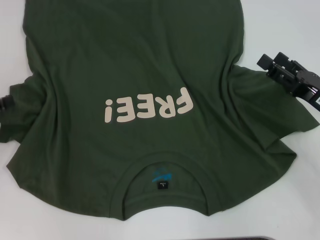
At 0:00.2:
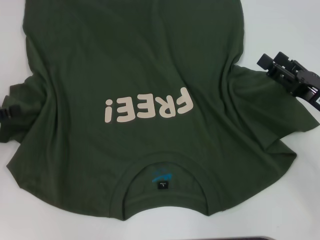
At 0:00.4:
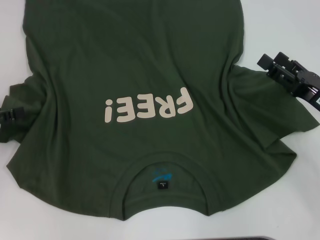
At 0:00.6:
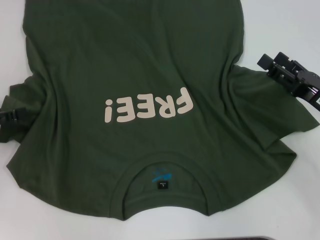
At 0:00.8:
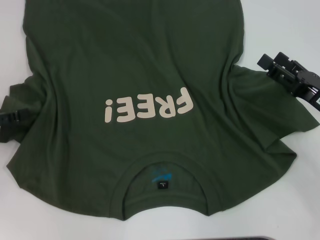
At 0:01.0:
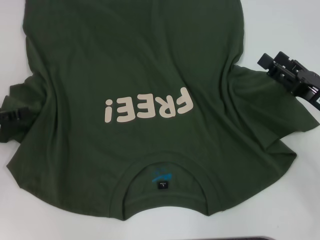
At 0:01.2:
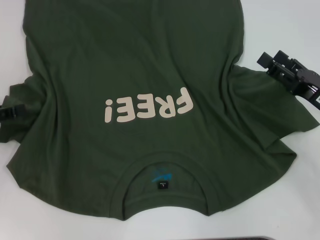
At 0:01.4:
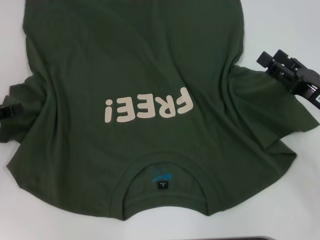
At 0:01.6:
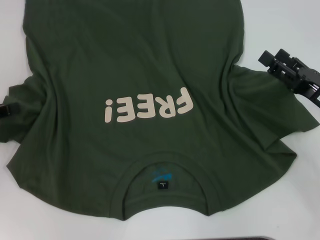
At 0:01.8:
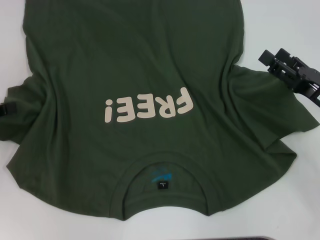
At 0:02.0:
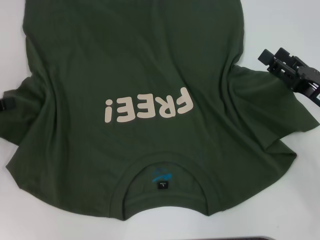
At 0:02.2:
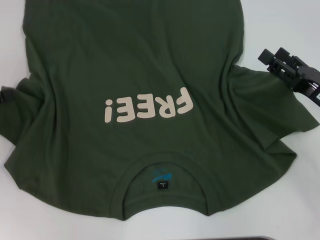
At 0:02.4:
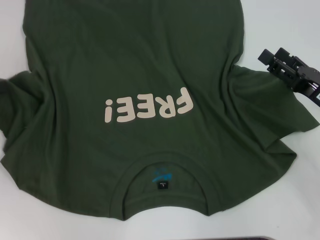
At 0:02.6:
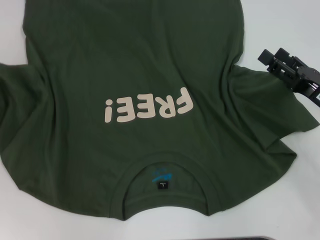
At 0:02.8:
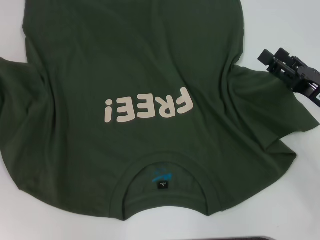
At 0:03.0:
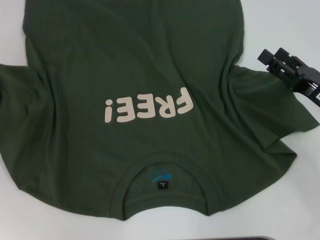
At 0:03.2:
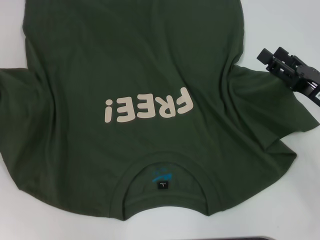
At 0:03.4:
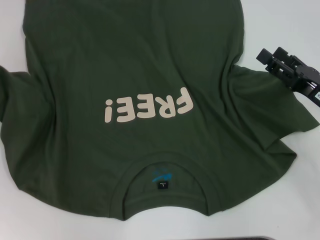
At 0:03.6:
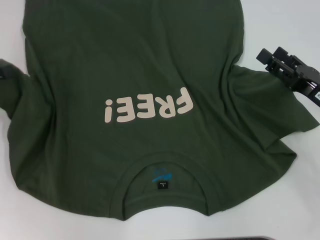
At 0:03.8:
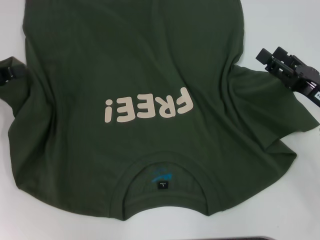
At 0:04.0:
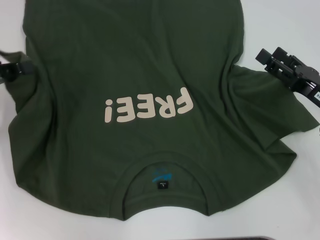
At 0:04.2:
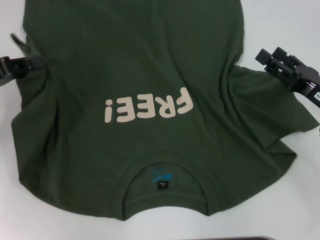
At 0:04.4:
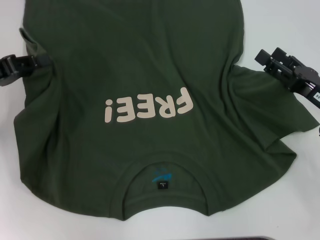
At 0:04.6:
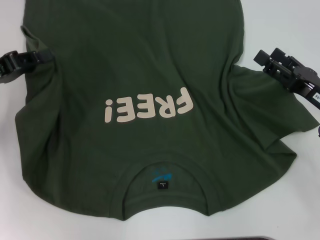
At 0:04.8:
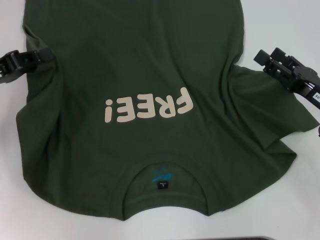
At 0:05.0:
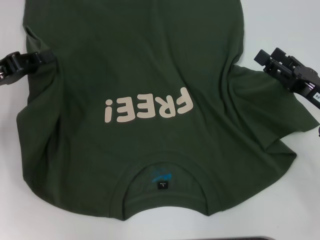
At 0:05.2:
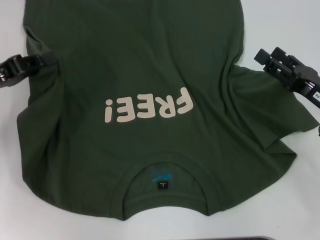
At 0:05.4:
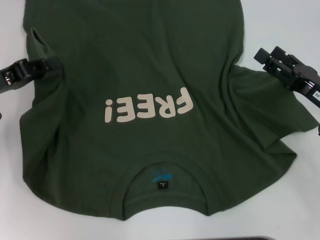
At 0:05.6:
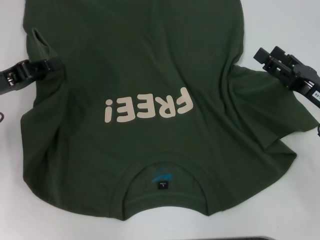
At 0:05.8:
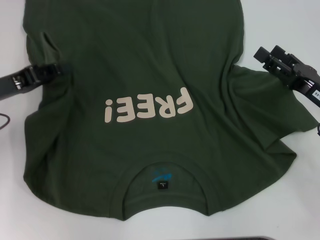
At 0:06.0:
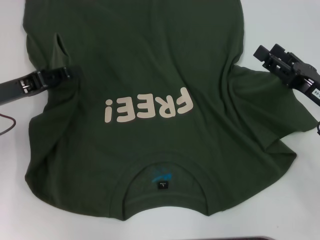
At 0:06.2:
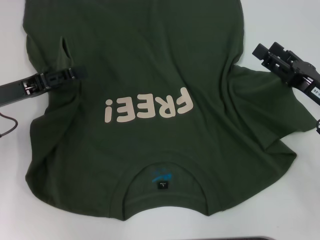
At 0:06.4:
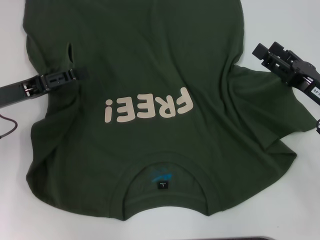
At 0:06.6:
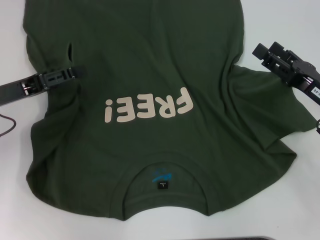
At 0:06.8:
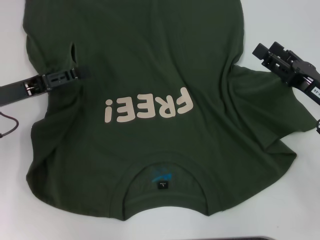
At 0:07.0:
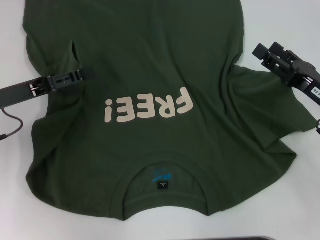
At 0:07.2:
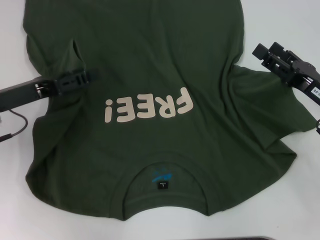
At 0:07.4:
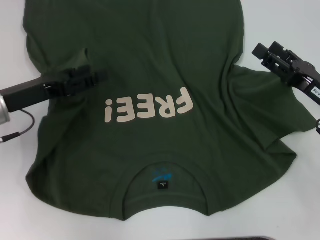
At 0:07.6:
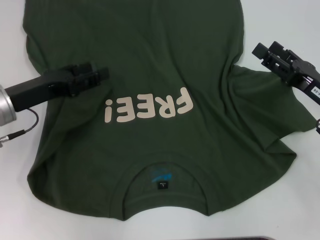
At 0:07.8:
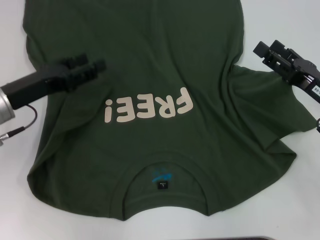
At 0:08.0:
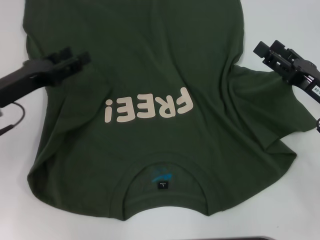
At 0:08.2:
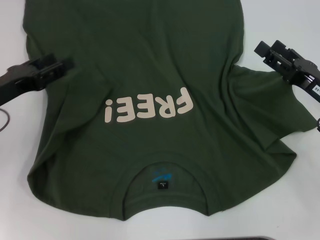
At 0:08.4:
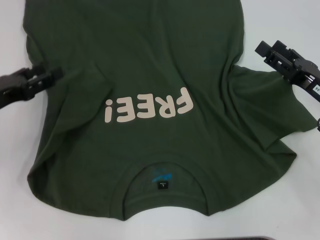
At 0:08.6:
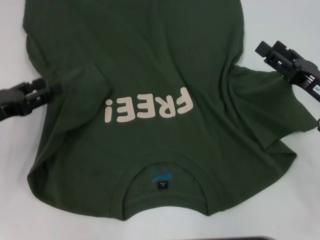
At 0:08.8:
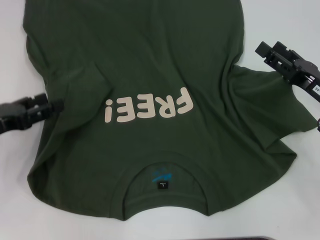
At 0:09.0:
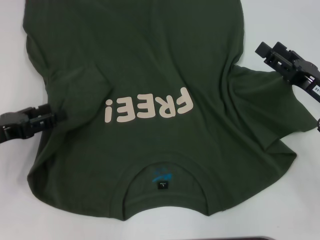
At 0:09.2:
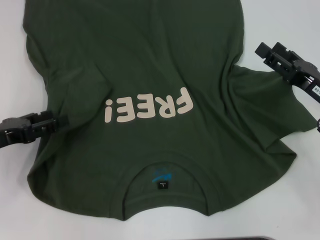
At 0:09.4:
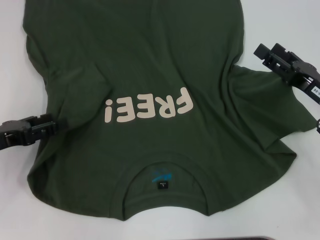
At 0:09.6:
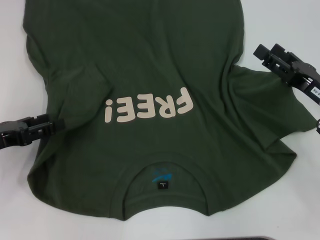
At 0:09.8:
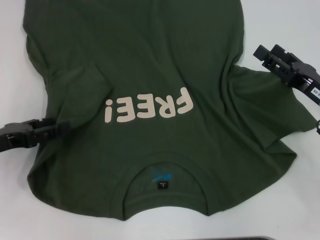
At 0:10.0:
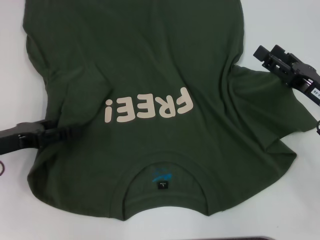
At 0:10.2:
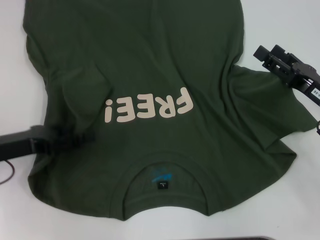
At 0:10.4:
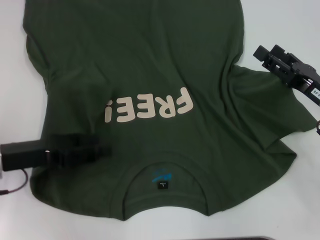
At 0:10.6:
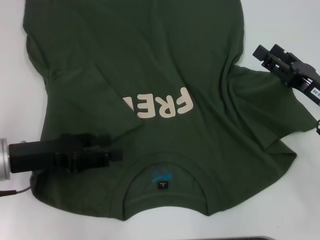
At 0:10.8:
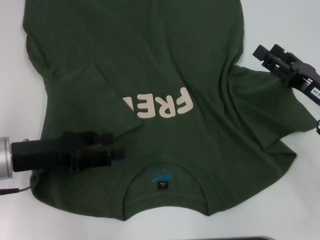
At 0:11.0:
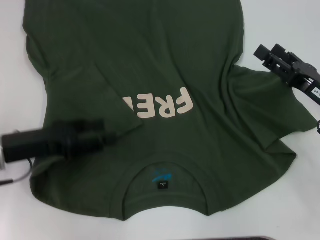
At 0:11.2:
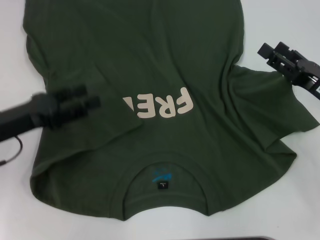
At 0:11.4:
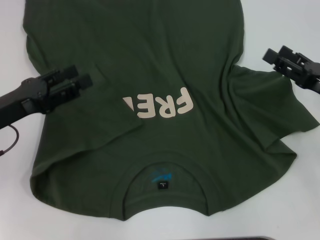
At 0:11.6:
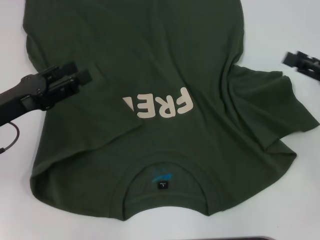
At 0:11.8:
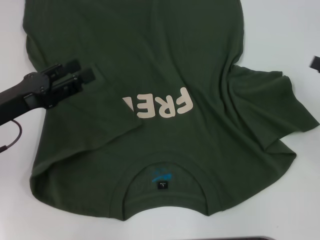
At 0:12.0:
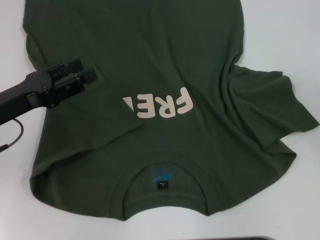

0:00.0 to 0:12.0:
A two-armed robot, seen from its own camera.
Step, 0:00.0 to 0:10.8: Fold the bottom left sleeve with your left hand.
0:01.6 to 0:03.0: The left gripper is displaced upward by about 5 cm, and closes up.
0:03.0 to 0:04.4: The left gripper moves to the right, approximately 5 cm.
0:04.4 to 0:06.0: The grippers stay close to where they were, moving slightly.
0:06.0 to 0:07.6: The left gripper opens up.
0:07.6 to 0:09.0: The left gripper travels to the left and backward by roughly 10 cm.
0:09.0 to 0:10.4: There are only small adjustments of the grippers.
0:10.4 to 0:12.0: The right gripper is displaced to the right and upward by roughly 15 cm.

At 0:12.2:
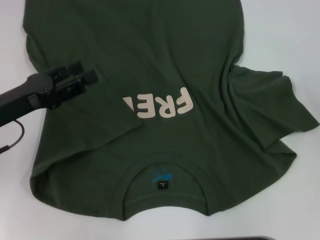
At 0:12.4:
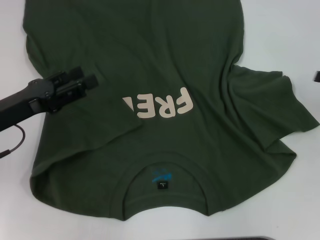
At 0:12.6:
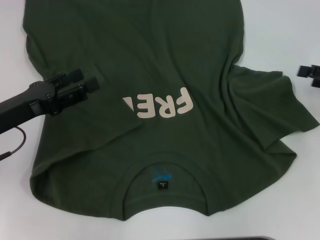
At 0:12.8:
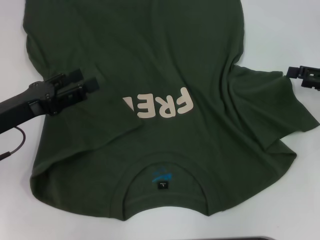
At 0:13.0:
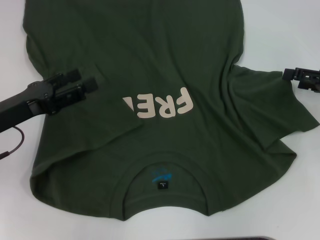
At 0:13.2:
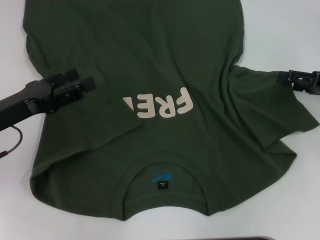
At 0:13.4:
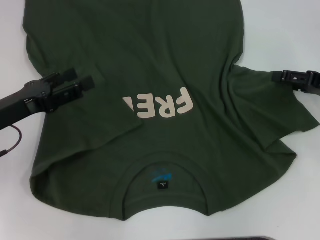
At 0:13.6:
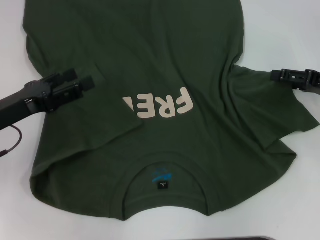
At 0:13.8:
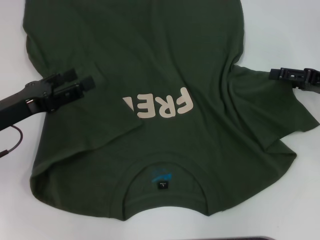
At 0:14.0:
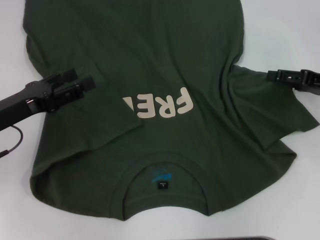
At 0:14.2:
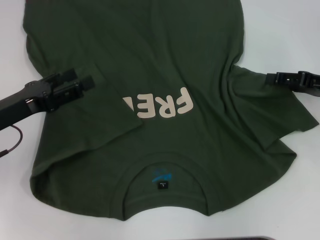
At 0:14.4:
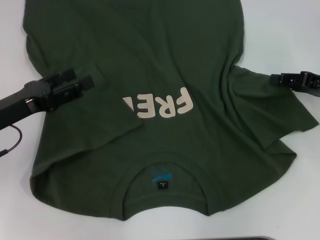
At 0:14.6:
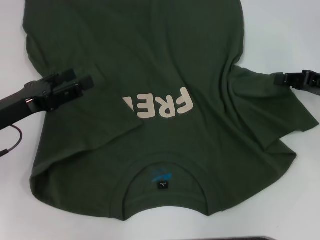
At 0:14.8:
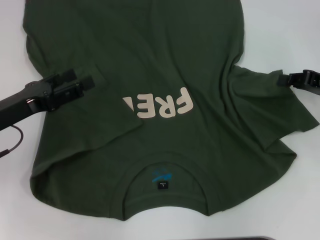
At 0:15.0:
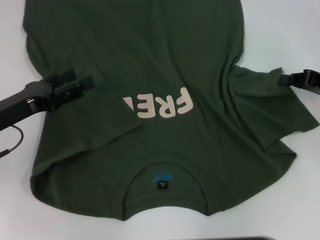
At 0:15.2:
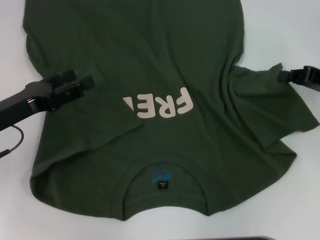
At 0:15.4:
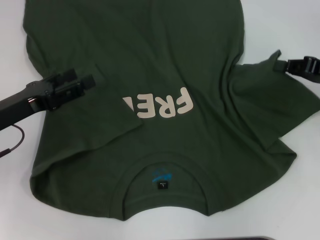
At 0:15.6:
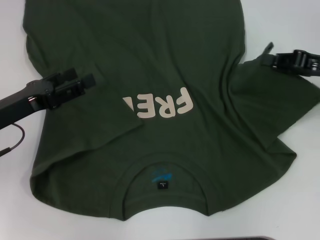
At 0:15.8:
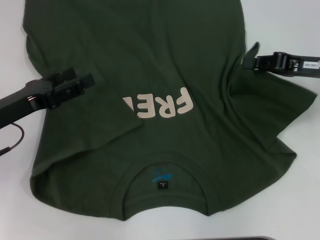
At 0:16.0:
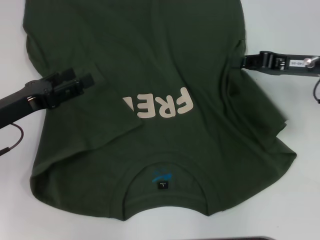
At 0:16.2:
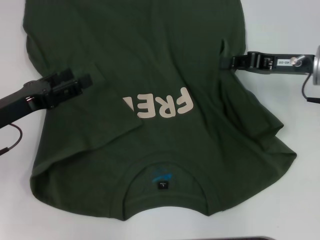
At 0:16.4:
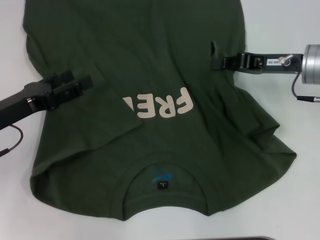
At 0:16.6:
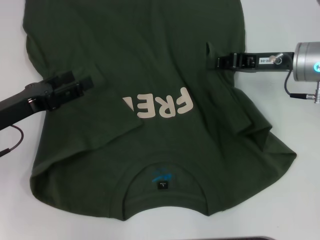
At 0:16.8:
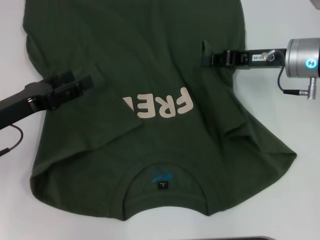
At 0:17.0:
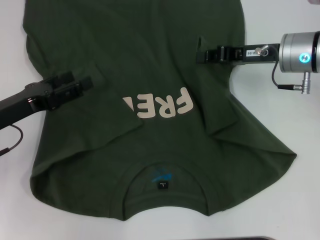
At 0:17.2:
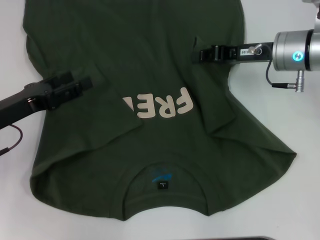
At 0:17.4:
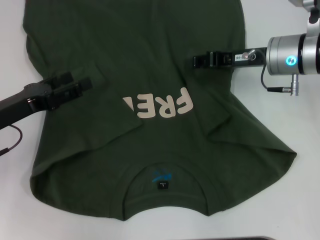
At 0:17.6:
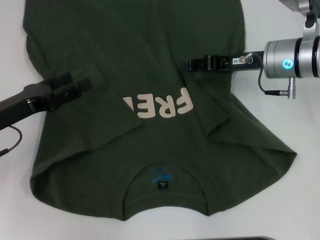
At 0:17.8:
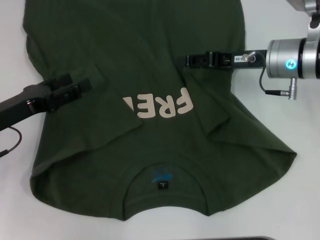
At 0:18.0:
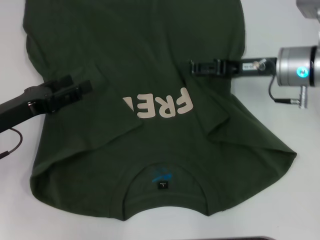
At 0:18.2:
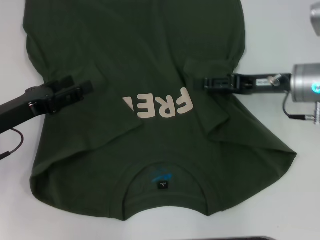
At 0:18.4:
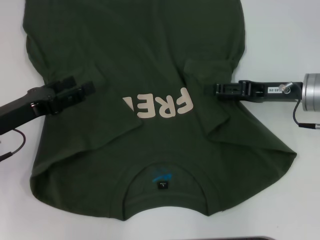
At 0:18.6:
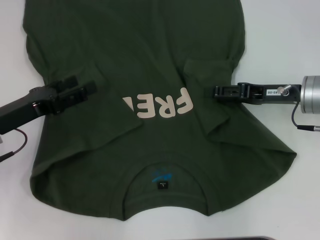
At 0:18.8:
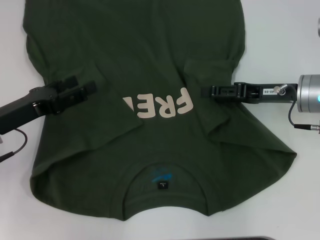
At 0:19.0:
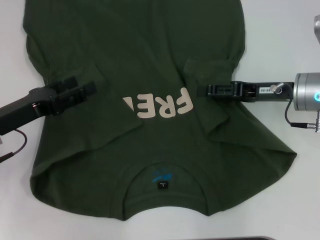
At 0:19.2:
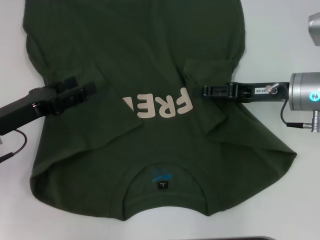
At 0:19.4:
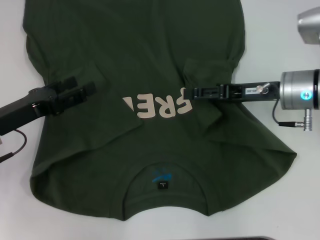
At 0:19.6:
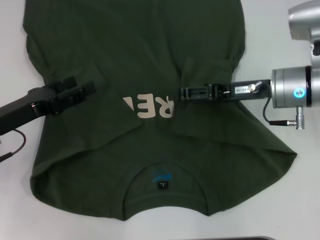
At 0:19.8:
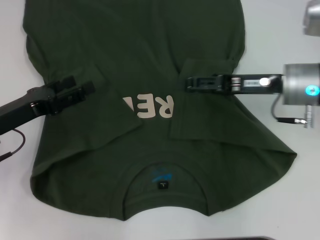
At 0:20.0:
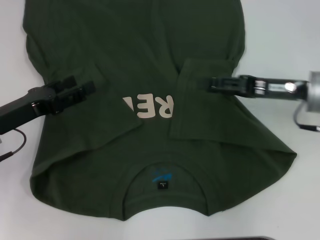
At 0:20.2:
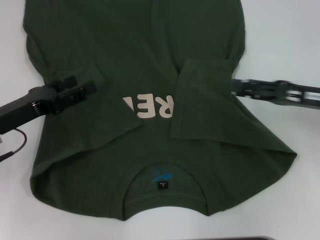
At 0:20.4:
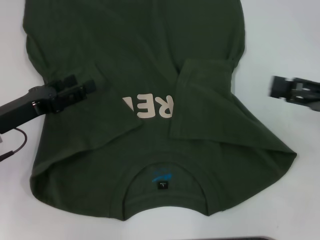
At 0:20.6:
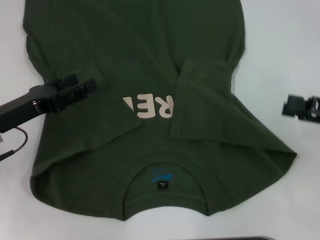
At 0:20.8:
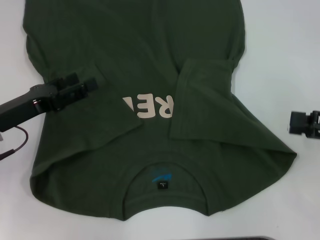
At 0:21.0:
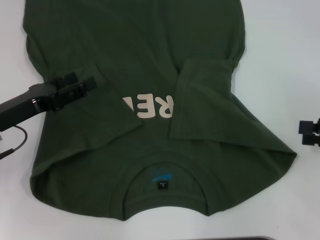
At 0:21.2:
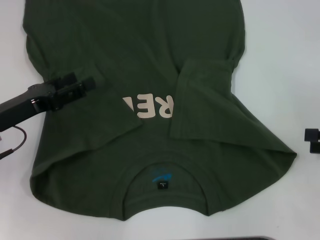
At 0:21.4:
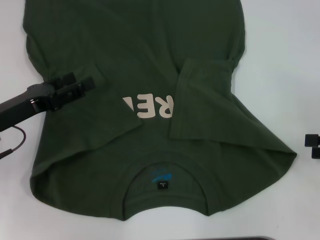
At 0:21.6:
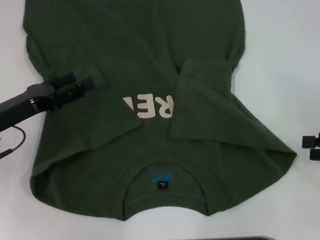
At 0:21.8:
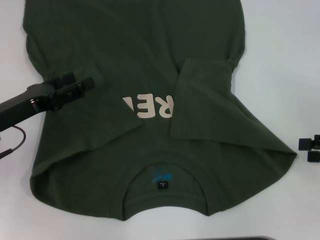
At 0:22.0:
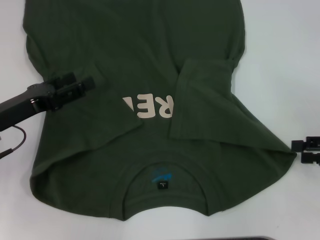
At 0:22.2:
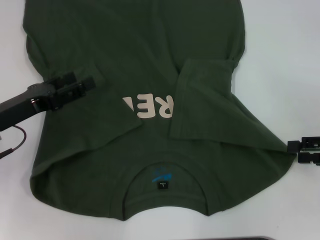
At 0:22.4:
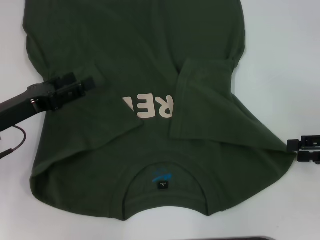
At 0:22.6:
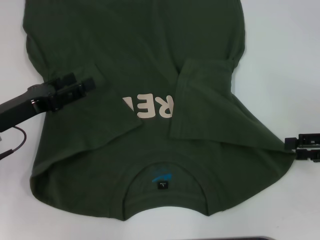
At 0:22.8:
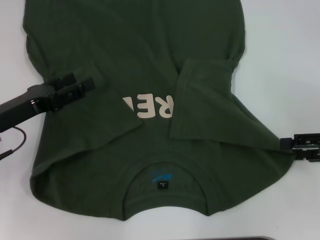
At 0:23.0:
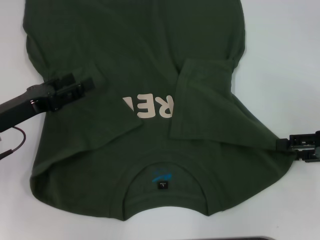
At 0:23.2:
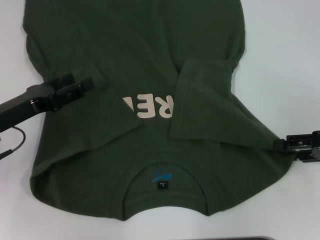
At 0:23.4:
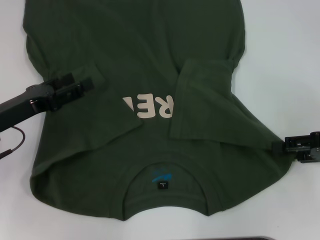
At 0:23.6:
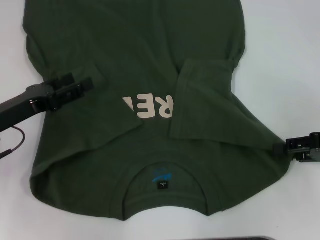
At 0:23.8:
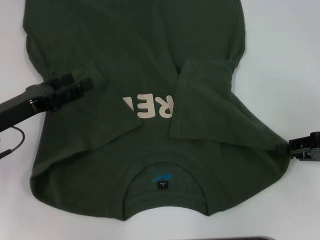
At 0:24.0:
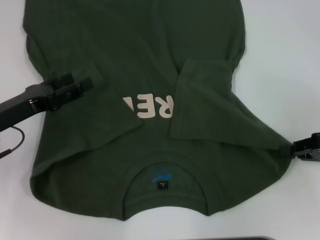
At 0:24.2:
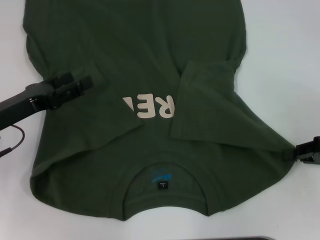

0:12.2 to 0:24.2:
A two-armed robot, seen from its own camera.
Step, 0:12.2 to 0:19.6: Fold the bottom right sleeve with your right hand.
0:12.2 to 0:13.8: The right gripper shifts approximately 10 cm to the left and forward.
0:13.8 to 0:15.2: The right gripper closes its fingers.
0:15.2 to 0:16.6: The right gripper travels to the left by approximately 10 cm.
0:16.6 to 0:18.2: The right gripper opens.
0:18.2 to 0:19.8: The grippers move only a little.
0:19.8 to 0:21.2: The right gripper moves to the right and backward, approximately 20 cm.
0:21.2 to 0:22.6: There are only small adjustments of the grippers.
0:22.6 to 0:24.2: The right gripper closes.
